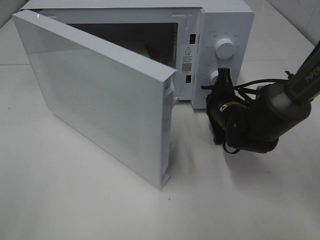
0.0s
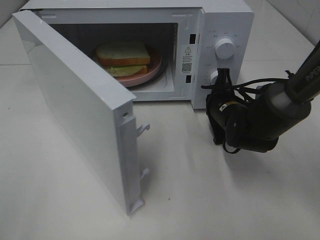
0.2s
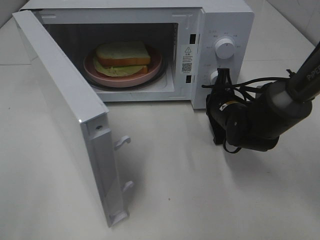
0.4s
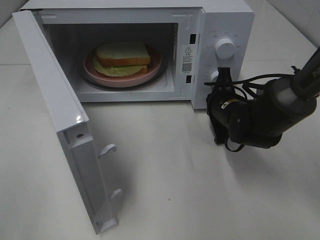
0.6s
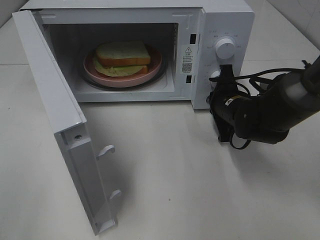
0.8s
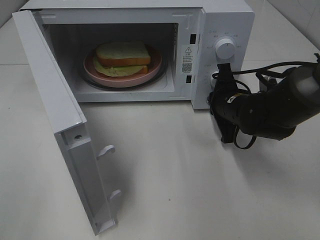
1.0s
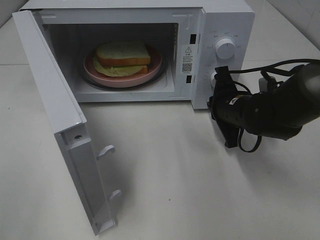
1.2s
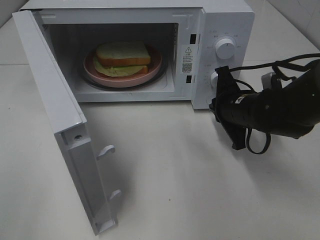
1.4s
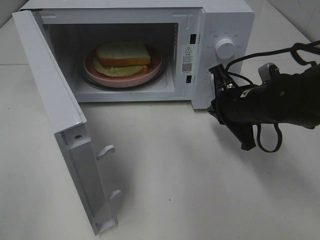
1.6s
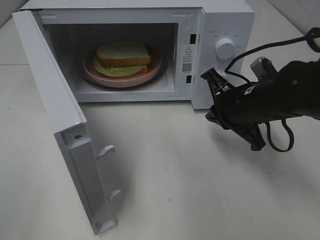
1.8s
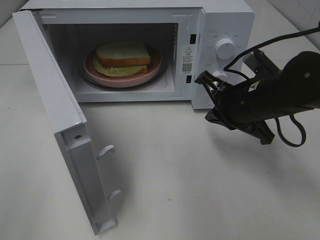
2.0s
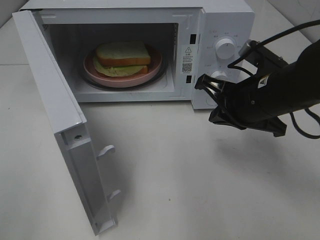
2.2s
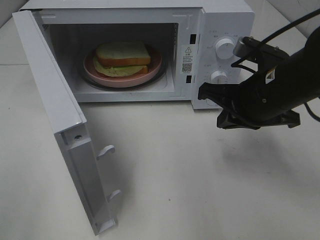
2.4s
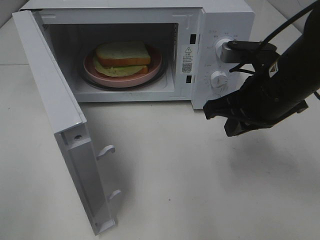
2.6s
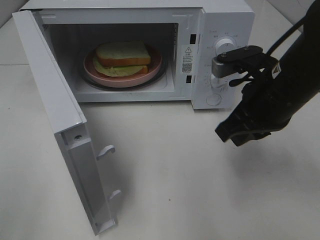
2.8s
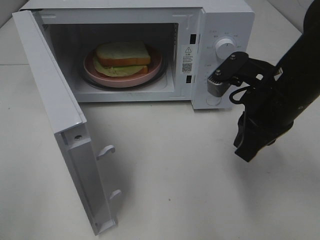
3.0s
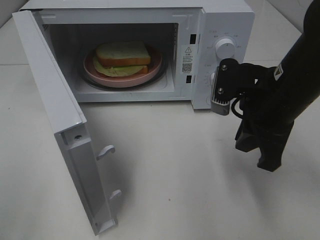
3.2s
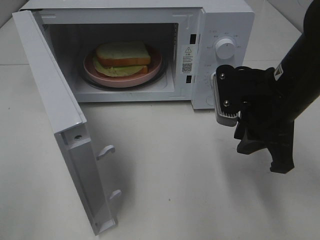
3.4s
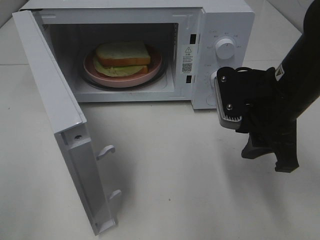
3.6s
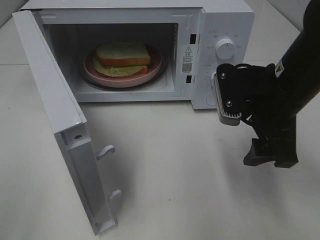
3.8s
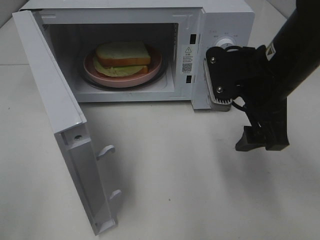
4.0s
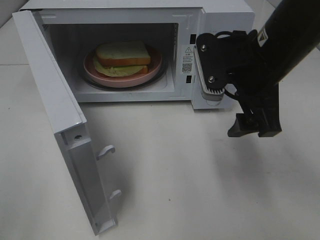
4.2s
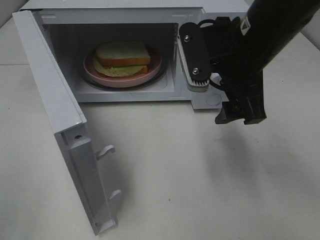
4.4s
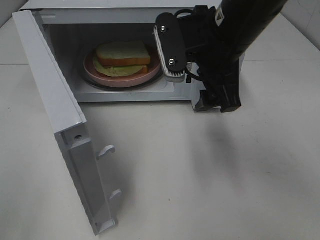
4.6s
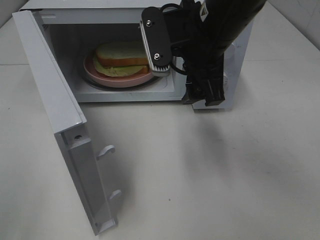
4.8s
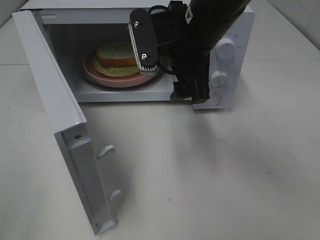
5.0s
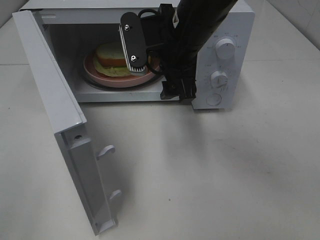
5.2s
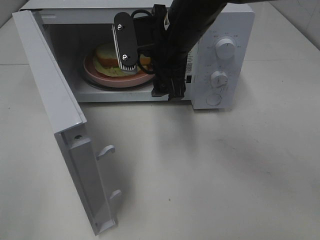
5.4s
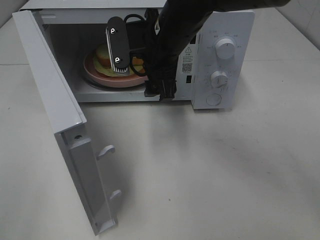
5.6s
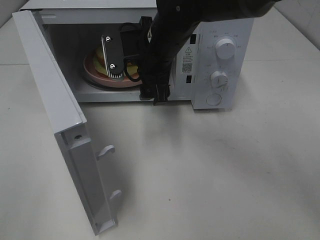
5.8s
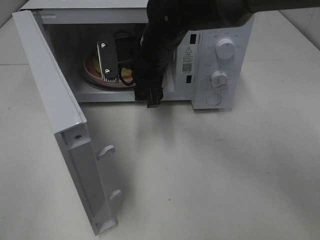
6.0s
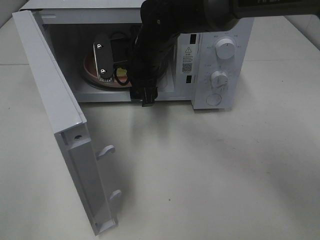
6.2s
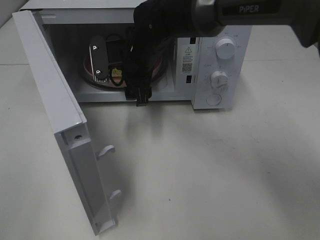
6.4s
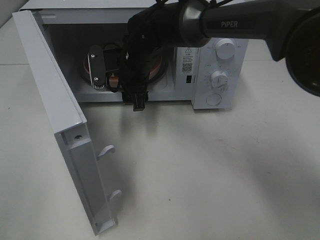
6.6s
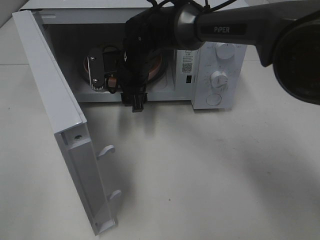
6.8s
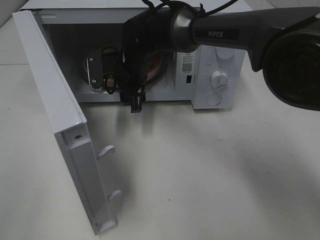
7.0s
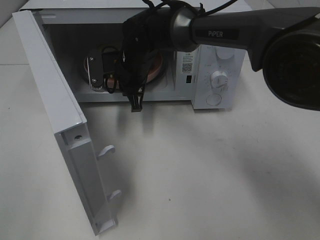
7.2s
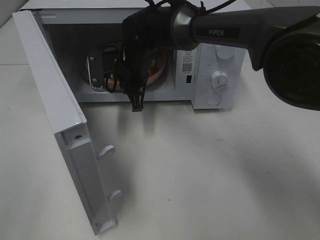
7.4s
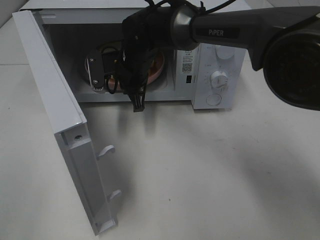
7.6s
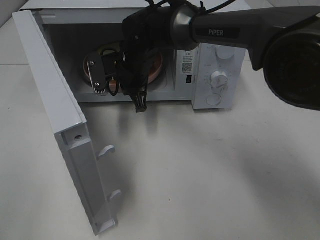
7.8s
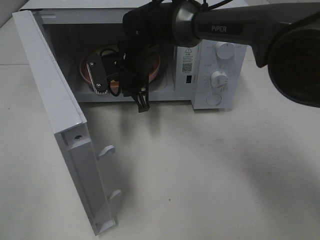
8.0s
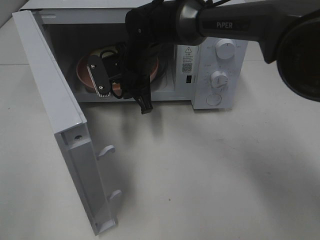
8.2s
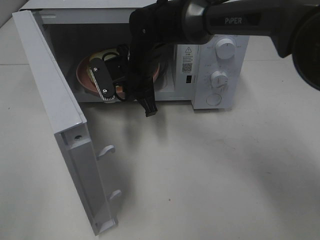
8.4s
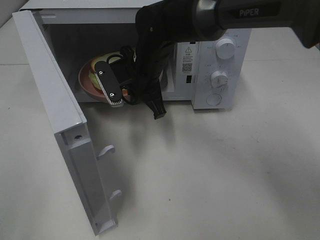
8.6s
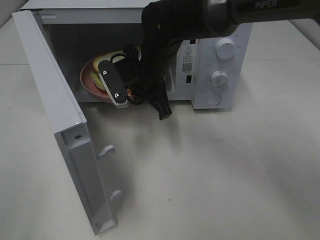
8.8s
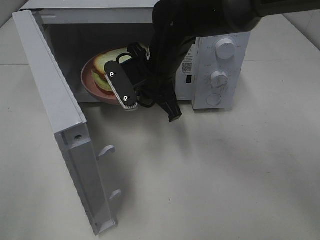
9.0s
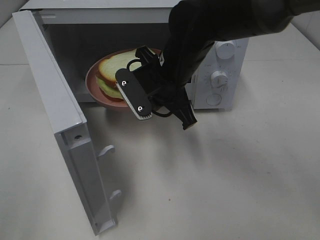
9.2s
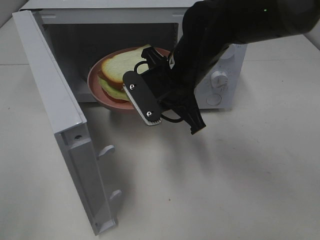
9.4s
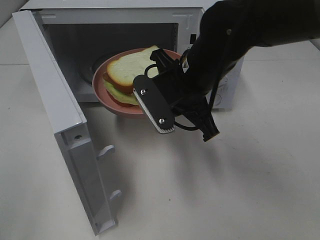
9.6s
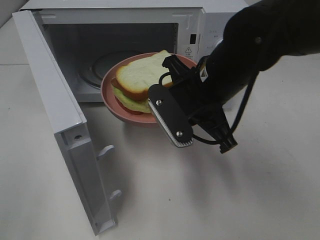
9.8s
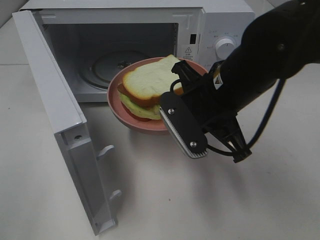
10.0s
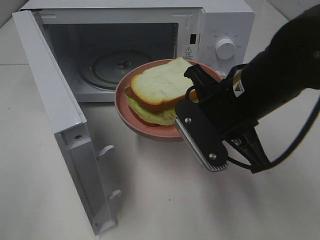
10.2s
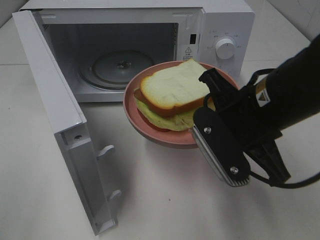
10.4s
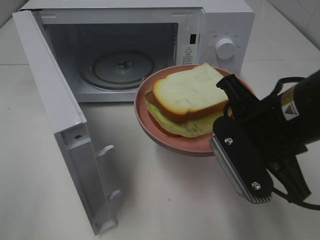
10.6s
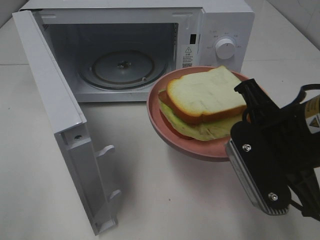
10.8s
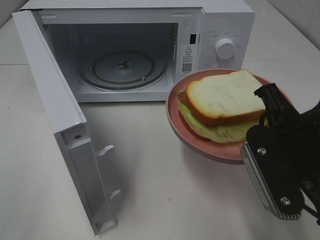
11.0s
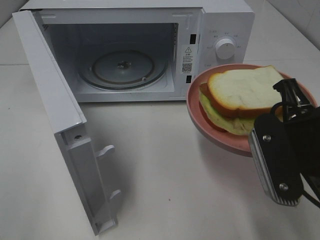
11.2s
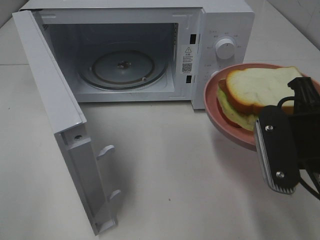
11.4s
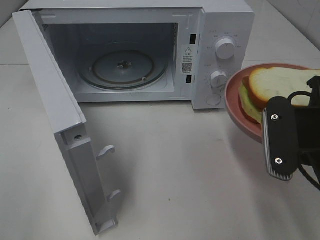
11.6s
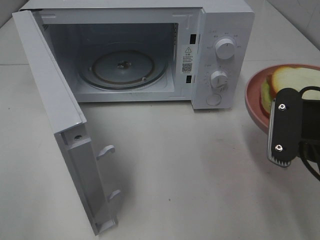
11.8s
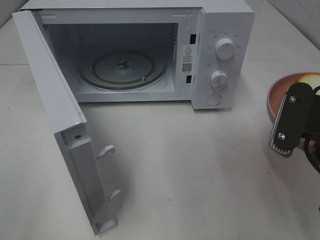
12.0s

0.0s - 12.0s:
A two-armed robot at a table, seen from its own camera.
Task of the whole recording: Heat Sandwich.
Step, 1.2s - 7.4s: Right hand: grab the plate with the sandwich.
0.0s - 1.6s: The right gripper goes about 5 cm upward.
1.6s - 3.0s: The right gripper moves upward and backward, roughly 10 cm.
3.0s - 4.4s: The right gripper moves to the left and upward, some 10 cm, and opens.
4.4s - 6.0s: The right gripper heads to the left, forward and downward, covering about 15 cm.
6.0s - 7.6s: The right gripper changes place by roughly 5 cm, and closes its fingers.
7.6s - 9.0s: The right gripper heads backward, covering some 5 cm.
9.0s - 10.4s: The right gripper shifts approximately 20 cm backward and to the right.
10.4s - 12.0s: The right gripper moves to the right, roughly 10 cm.

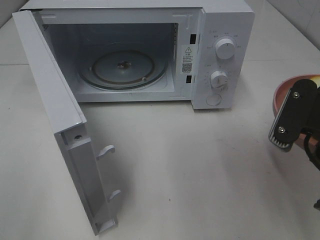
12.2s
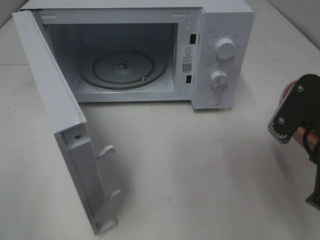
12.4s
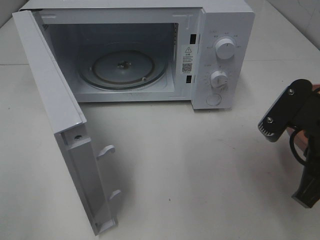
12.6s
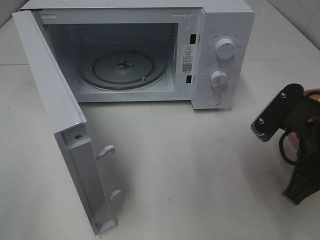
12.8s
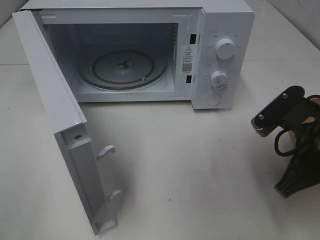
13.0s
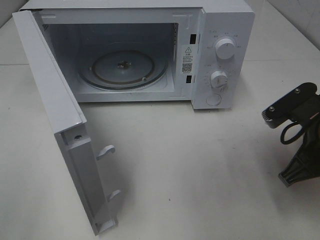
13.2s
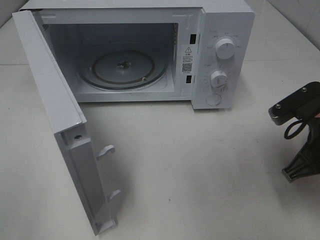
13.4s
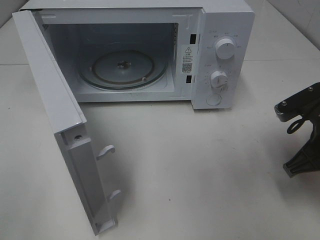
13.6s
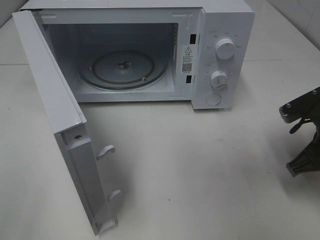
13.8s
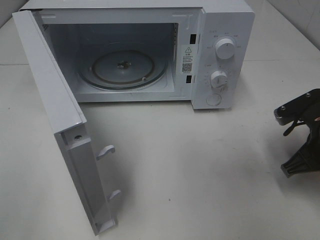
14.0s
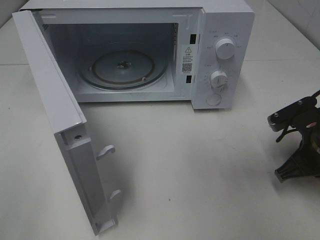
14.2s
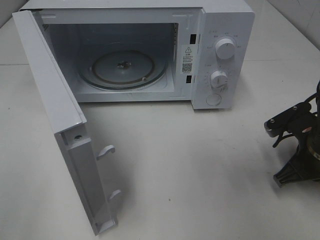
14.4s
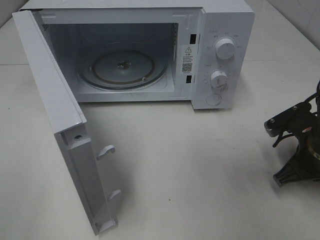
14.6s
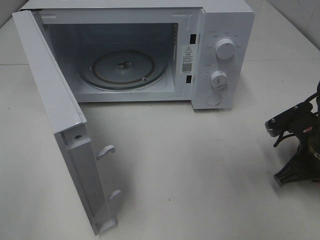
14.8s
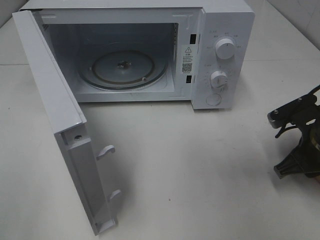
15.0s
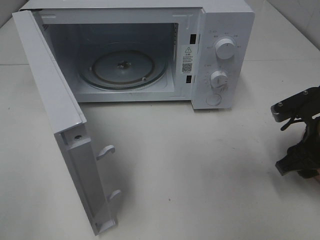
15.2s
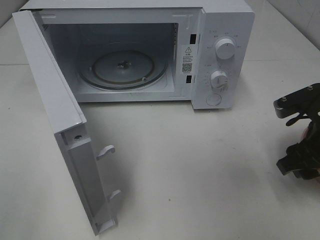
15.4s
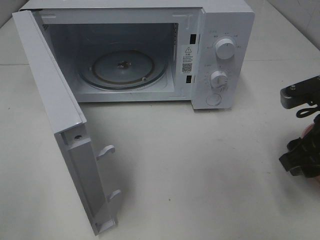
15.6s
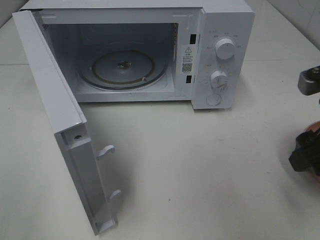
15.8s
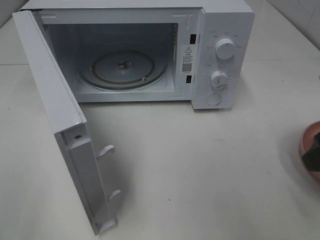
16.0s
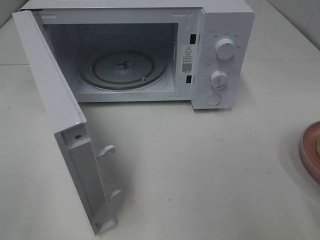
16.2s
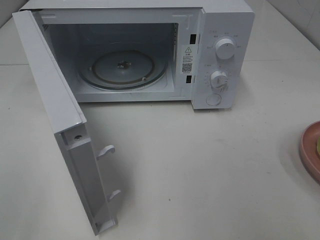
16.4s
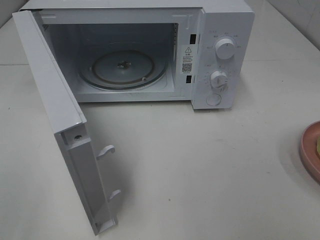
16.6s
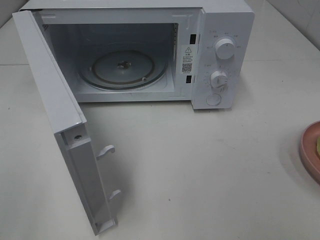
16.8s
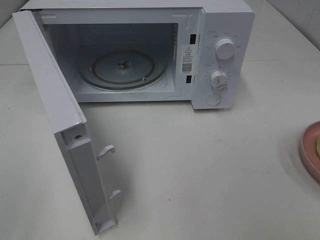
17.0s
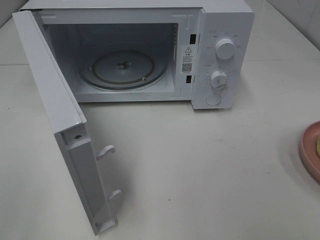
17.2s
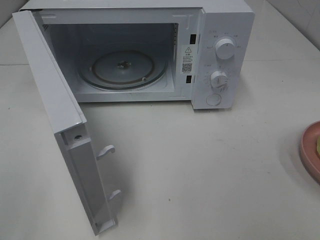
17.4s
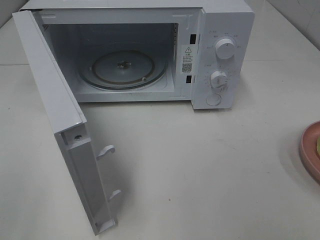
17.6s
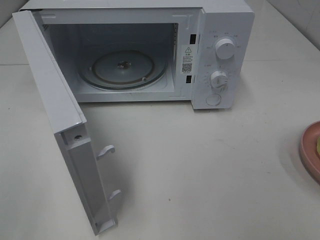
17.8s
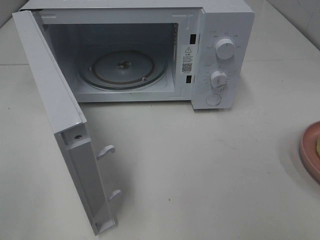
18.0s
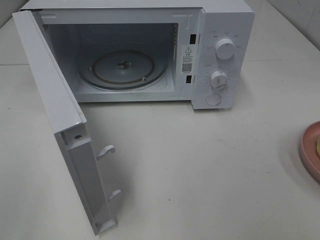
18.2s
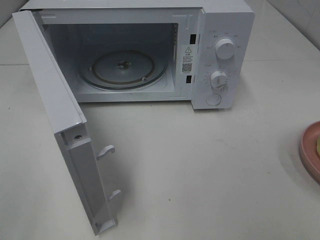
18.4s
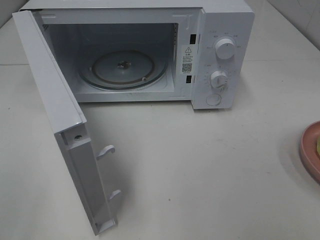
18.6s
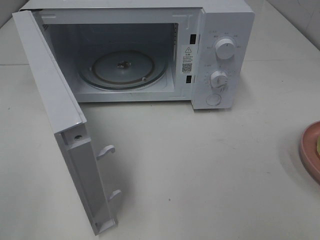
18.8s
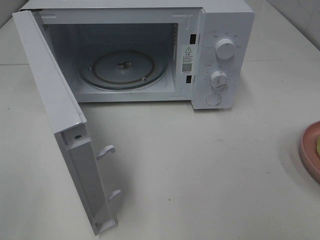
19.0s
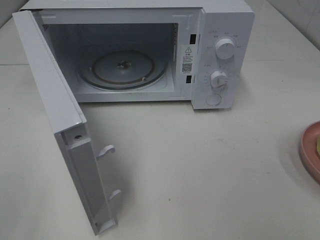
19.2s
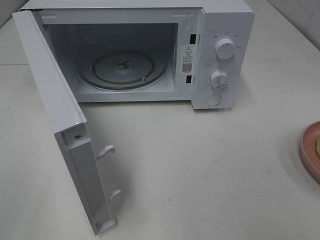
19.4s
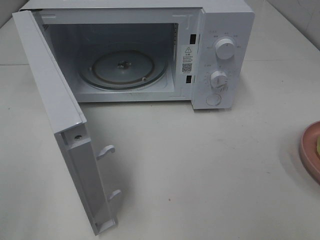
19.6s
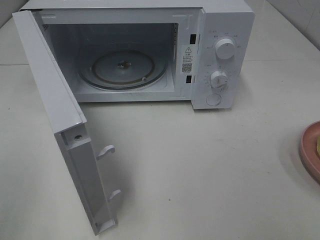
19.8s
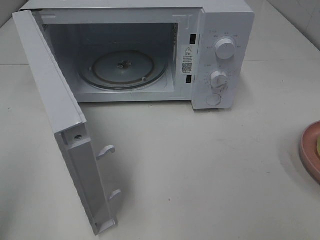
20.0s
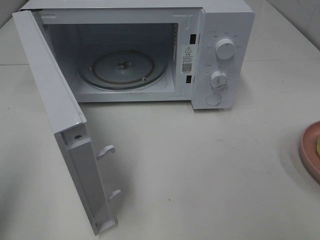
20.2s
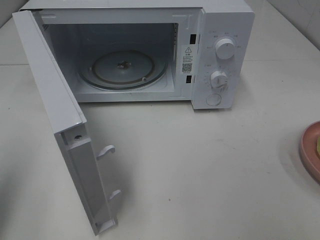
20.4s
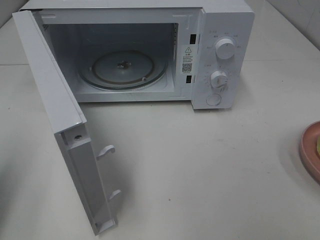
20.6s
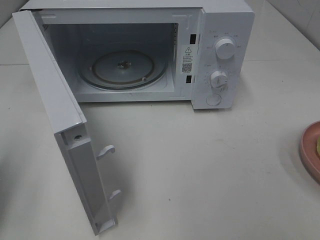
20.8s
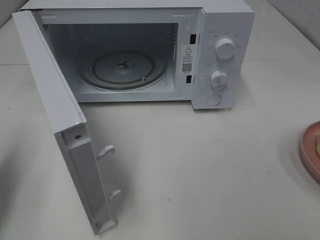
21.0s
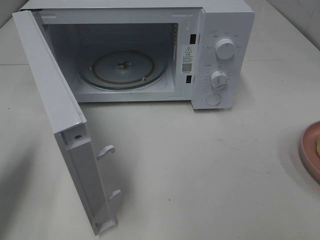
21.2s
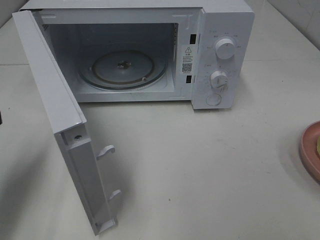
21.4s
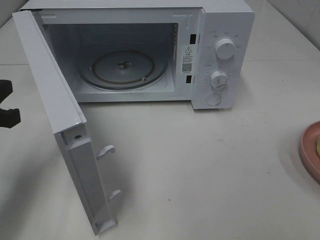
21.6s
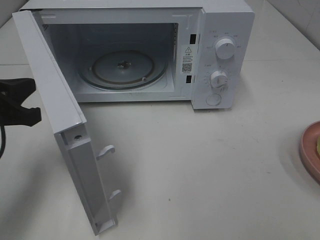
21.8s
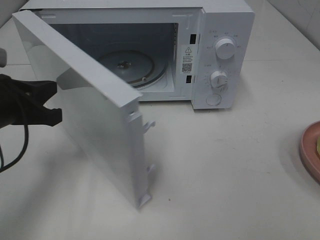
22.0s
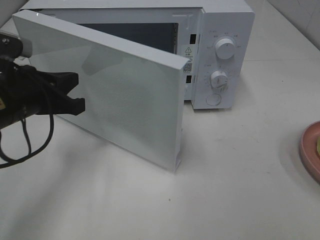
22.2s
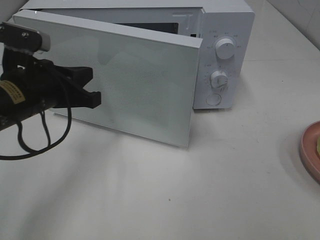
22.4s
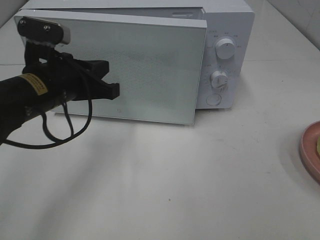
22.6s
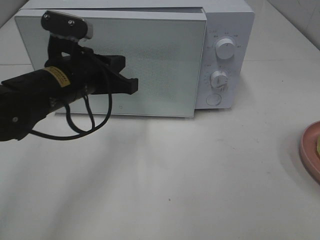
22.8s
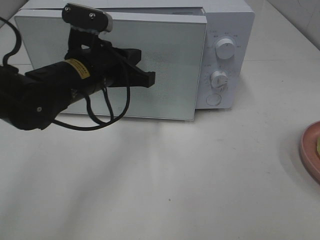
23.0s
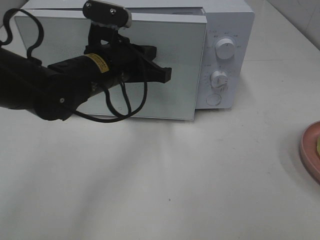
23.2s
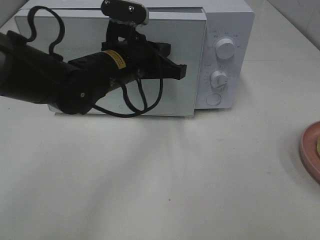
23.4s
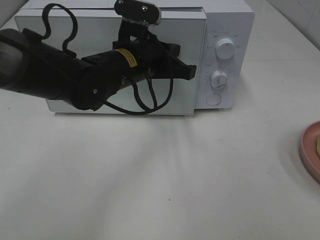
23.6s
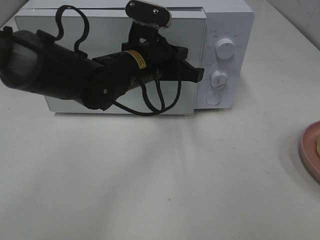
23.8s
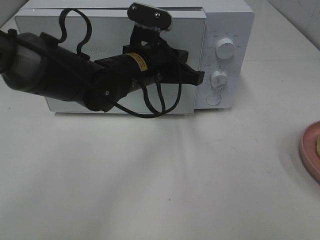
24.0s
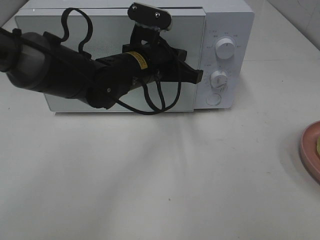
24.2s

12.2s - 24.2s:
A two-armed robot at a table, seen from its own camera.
Task of the whole recording: Heat Sandwich.
Step, 12.2s - 15.8s: Right hand: place the plate on the table.
12.2s - 13.8s: The right gripper goes approximately 10 cm downward, forward and to the right.
13.8s - 15.2s: The right gripper opens its fingers.
15.2s - 16.6s: The right gripper is displaced backward and upward by roughly 25 cm.
19.8s - 21.2s: The left gripper moves forward and downward, some 20 cm, and closes up.
21.2s - 22.6s: The left gripper travels to the right and forward by approximately 20 cm.
22.6s - 24.2s: The left gripper is displaced to the right and forward by some 15 cm.
